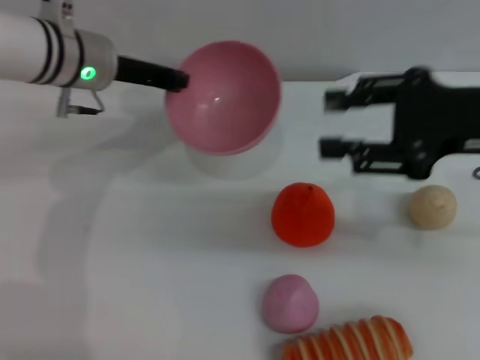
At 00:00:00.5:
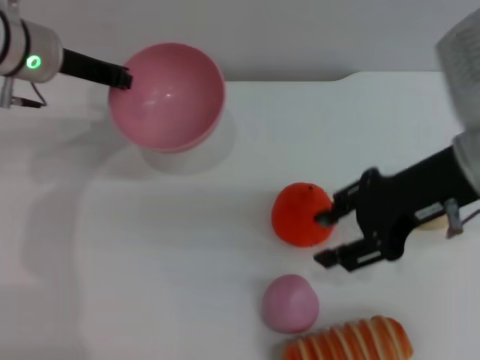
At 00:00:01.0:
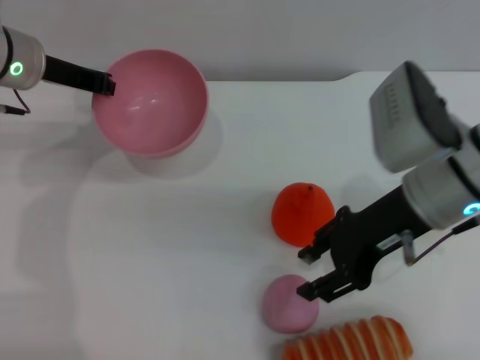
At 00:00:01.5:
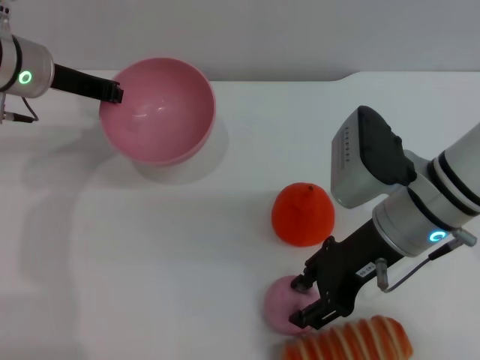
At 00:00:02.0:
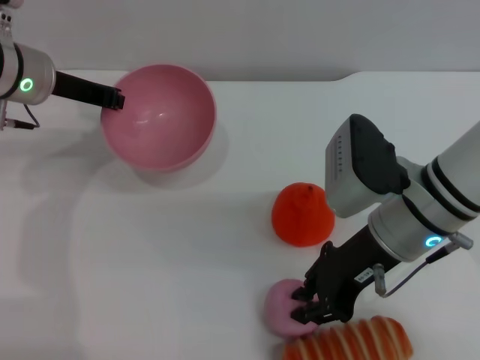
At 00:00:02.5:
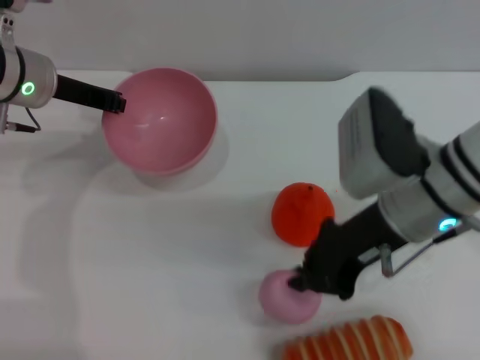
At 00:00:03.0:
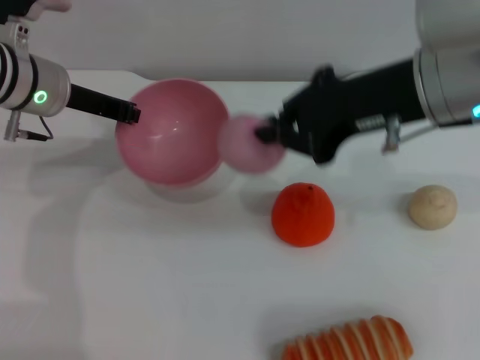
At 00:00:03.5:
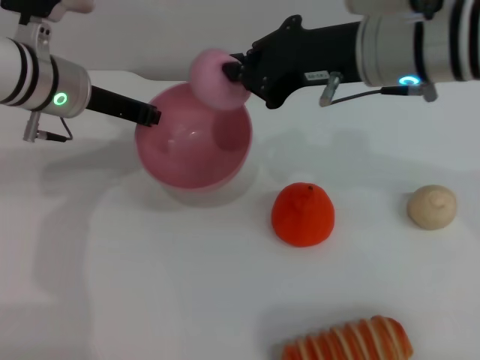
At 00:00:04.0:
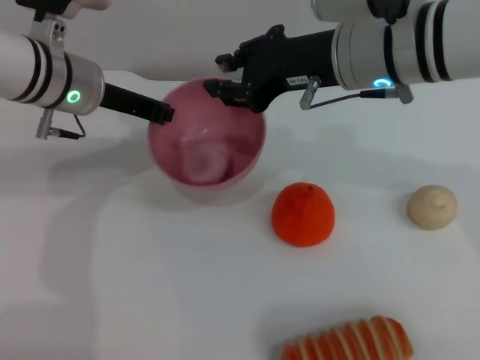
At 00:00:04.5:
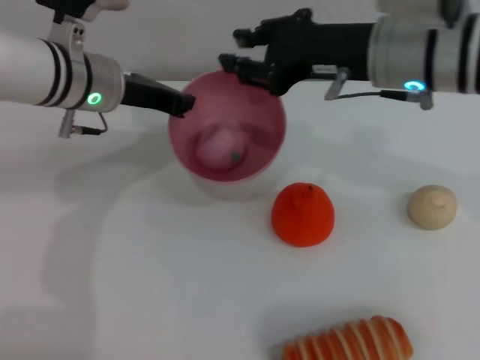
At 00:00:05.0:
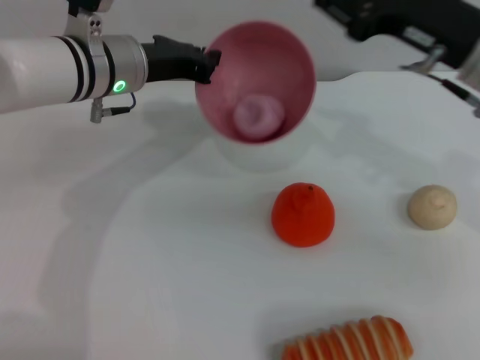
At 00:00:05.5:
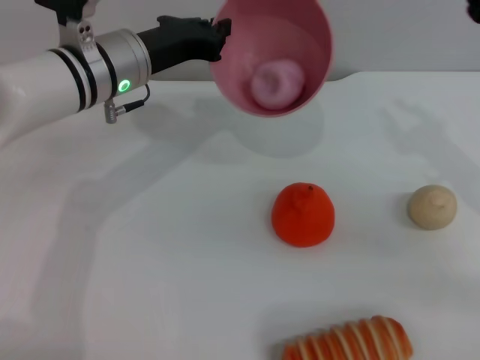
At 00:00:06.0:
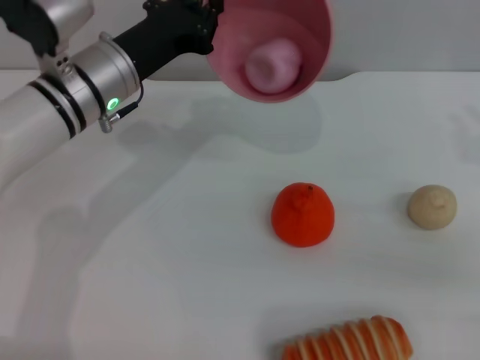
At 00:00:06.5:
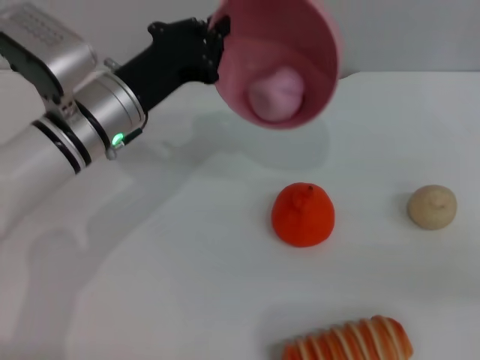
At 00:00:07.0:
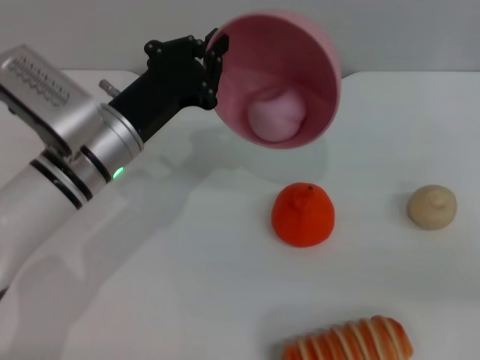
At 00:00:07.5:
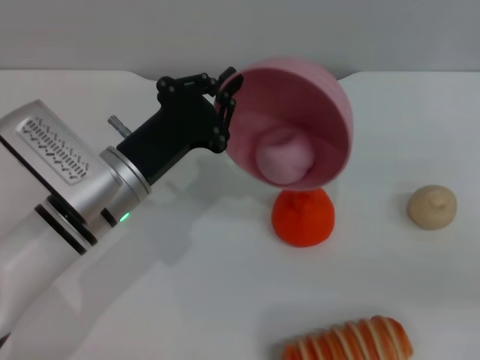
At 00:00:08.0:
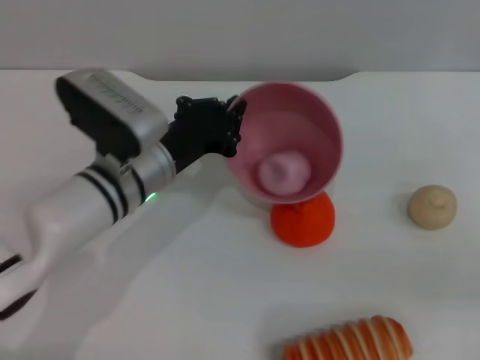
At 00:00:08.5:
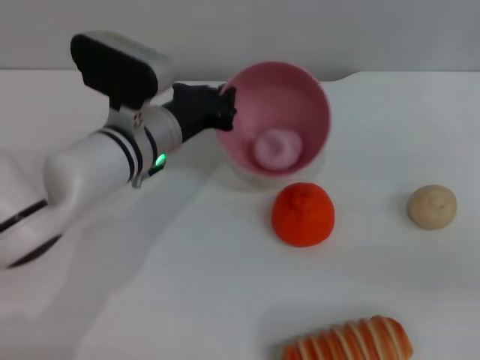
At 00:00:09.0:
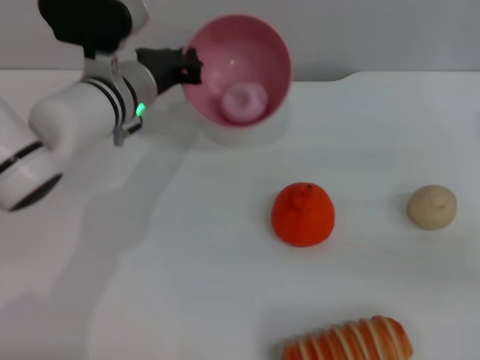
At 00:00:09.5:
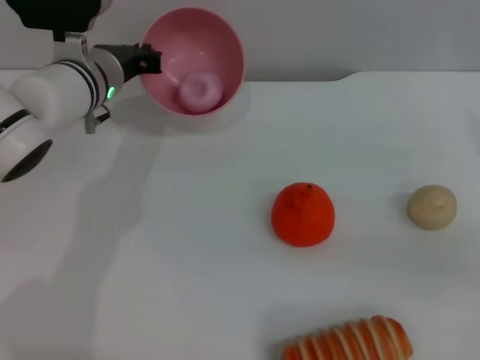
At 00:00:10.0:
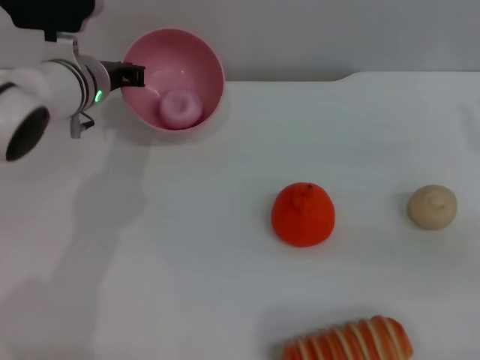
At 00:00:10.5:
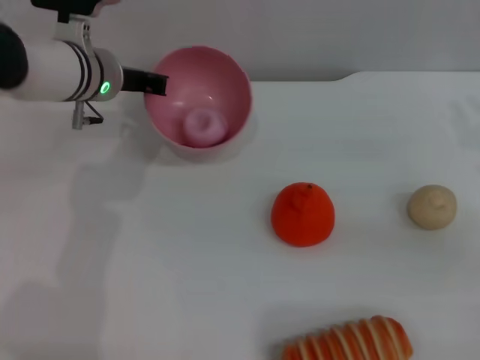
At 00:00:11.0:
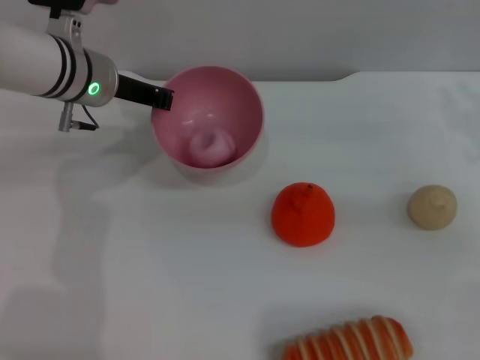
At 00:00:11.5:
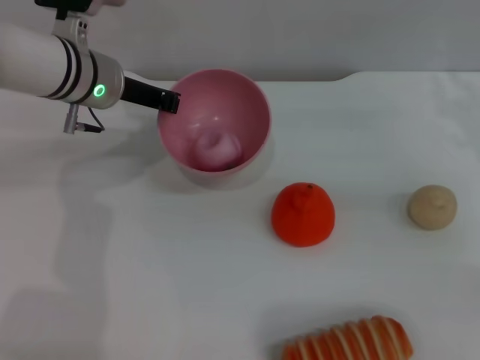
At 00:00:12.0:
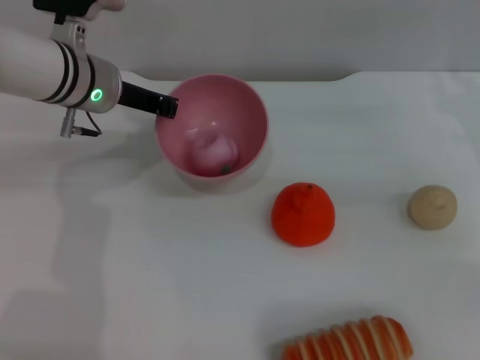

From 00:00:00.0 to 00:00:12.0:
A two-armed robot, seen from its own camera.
Task of the whole recording: put the peach into the pink bowl and pour it out repeatedly.
Step, from 00:00:00.0 to 00:00:02.5: Pick up the peach with the right gripper.
Step, from 00:00:03.0 to 00:00:04.5: Place the peach into the bowl.
From 00:00:00.0 to 00:00:02.0: The left gripper is displaced to the left by some 5 cm; the right gripper goes approximately 15 cm downward and to the left.
From 00:00:02.0 to 00:00:04.0: The right gripper is displaced upward and forward by some 10 cm, and closes its fingers.
From 00:00:04.0 to 00:00:06.0: The right gripper heads to the right, covering approximately 20 cm.
From 00:00:06.0 to 00:00:08.0: The left gripper travels downward and backward by about 10 cm.
From 00:00:08.0 to 00:00:10.0: The left gripper moves forward, some 10 cm.
From 00:00:10.0 to 00:00:12.0: The right gripper shifts approximately 5 cm forward.

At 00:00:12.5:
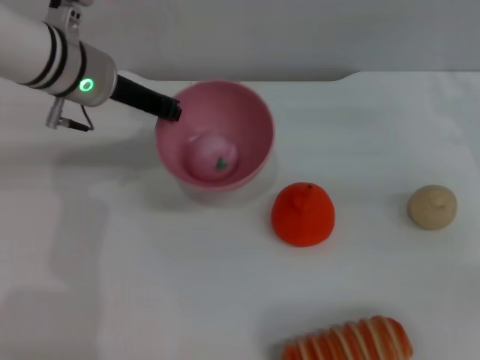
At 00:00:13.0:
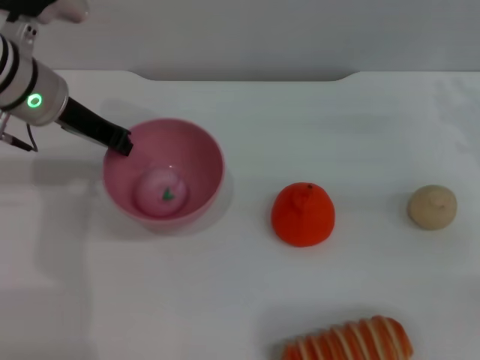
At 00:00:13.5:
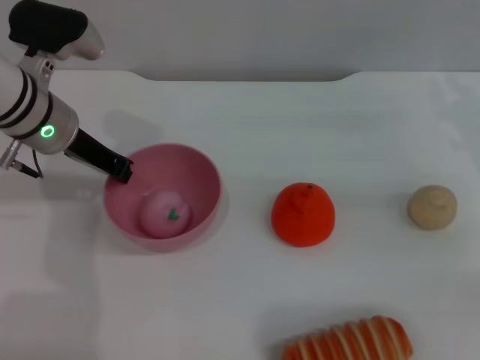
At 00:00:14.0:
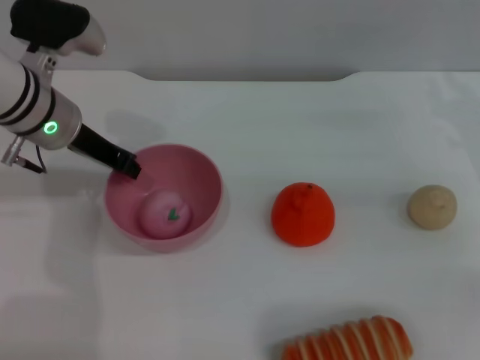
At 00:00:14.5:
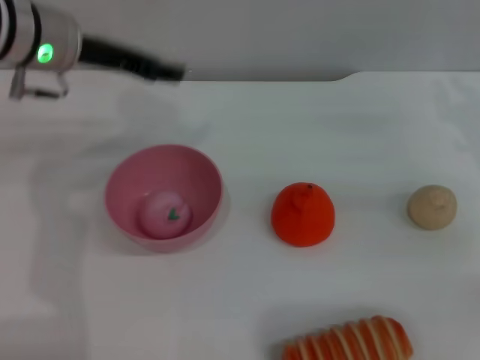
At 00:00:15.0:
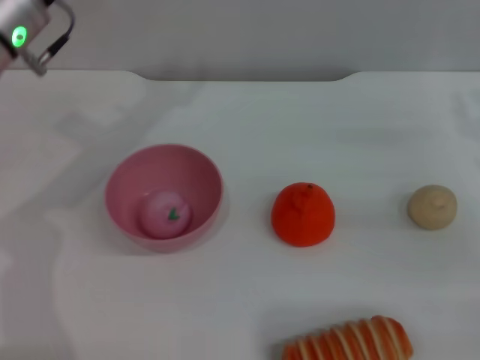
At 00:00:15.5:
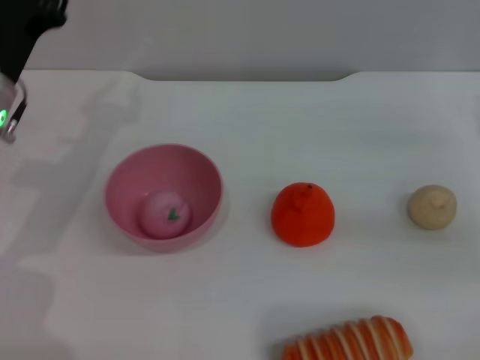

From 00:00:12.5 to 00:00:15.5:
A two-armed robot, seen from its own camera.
Task of the whole recording: put the peach into the pink bowl and pour it out repeatedly.
From 00:00:12.5 to 00:00:14.0: The grippers make only small movements.
From 00:00:14.0 to 00:00:15.5: The left gripper moves roughly 5 cm upward and comes back.

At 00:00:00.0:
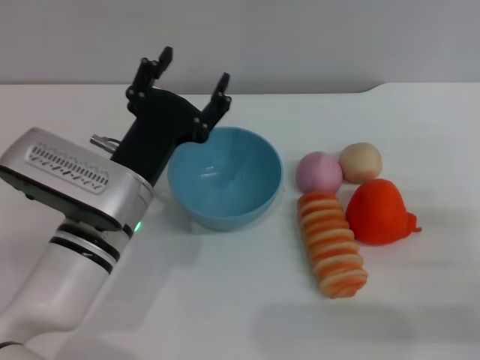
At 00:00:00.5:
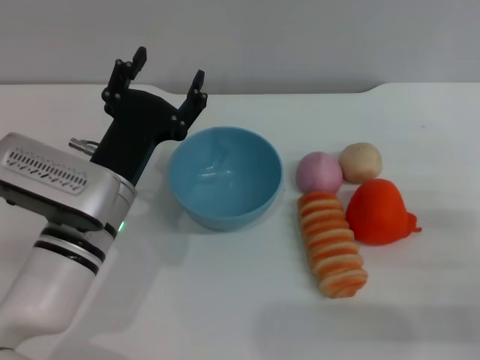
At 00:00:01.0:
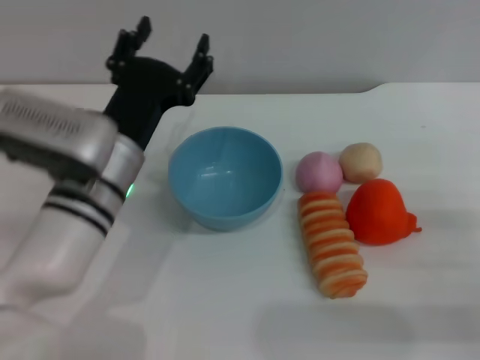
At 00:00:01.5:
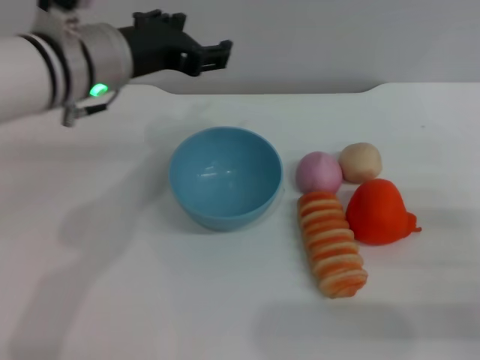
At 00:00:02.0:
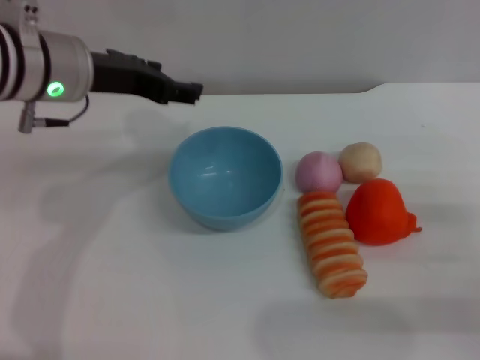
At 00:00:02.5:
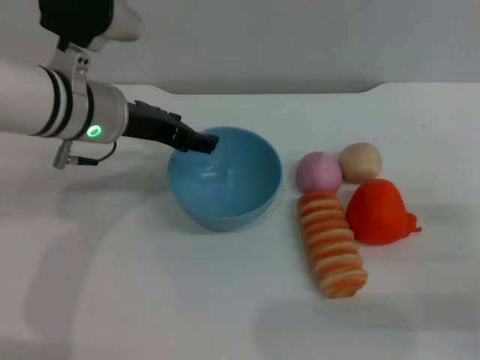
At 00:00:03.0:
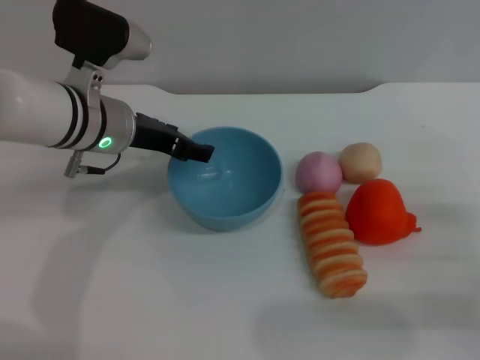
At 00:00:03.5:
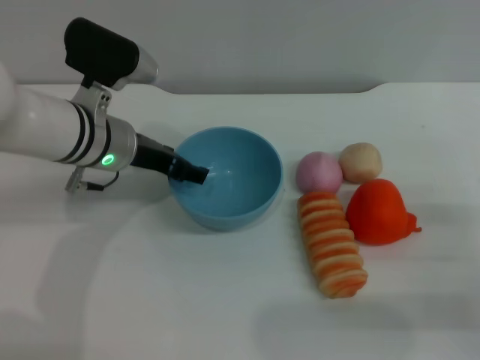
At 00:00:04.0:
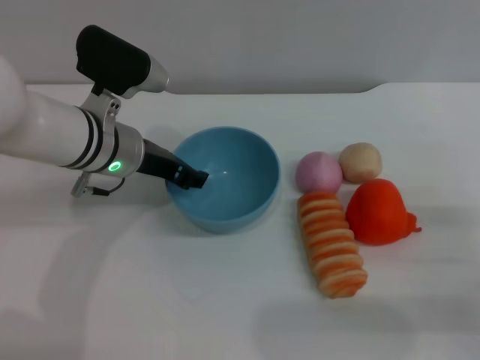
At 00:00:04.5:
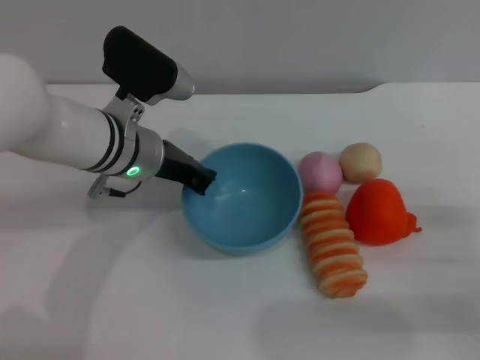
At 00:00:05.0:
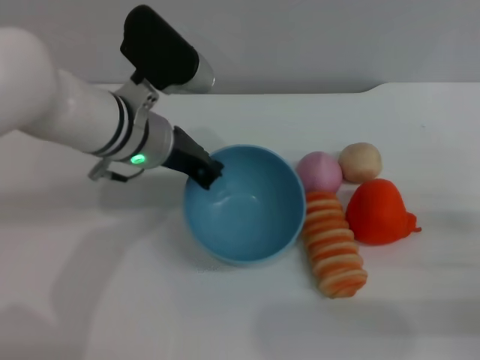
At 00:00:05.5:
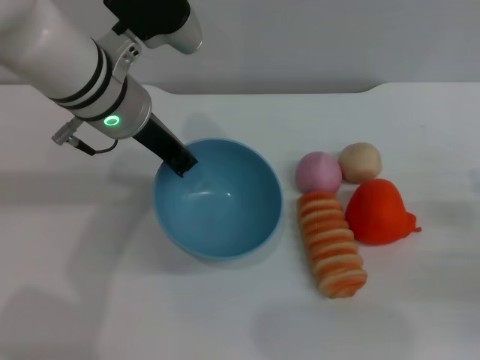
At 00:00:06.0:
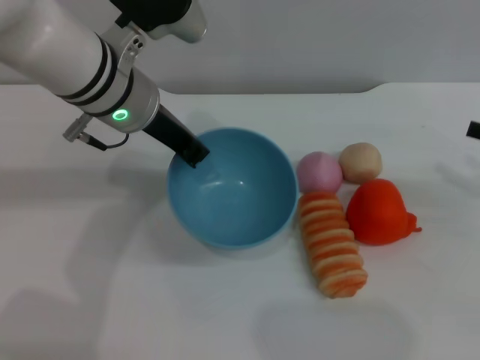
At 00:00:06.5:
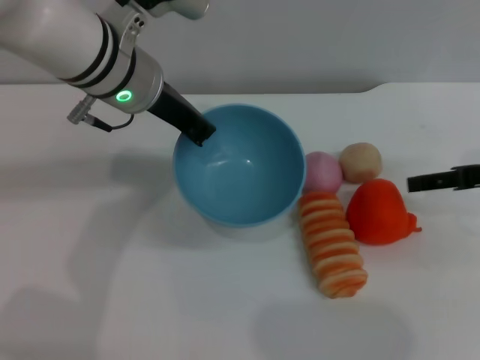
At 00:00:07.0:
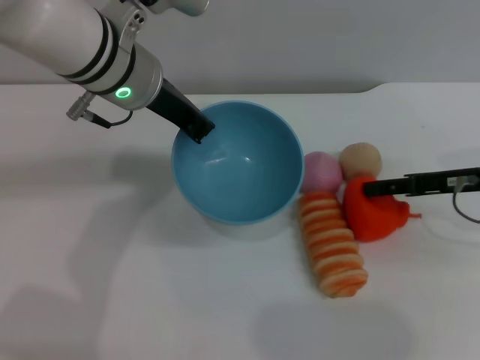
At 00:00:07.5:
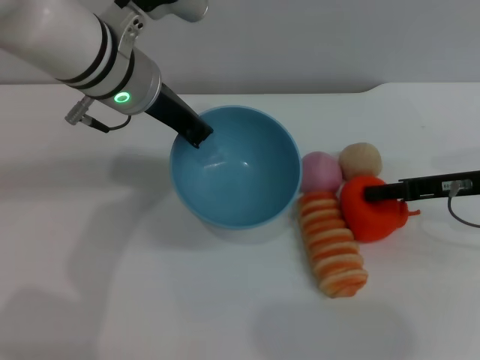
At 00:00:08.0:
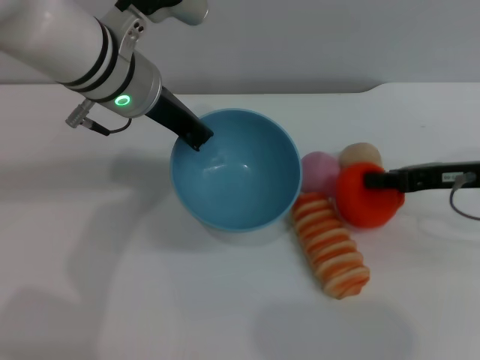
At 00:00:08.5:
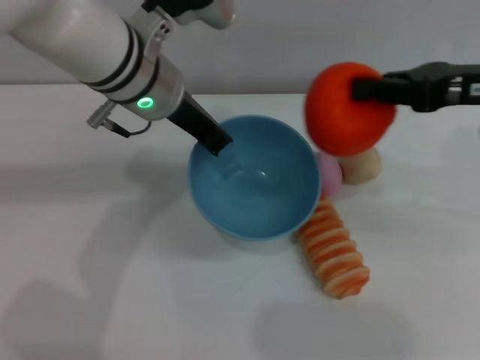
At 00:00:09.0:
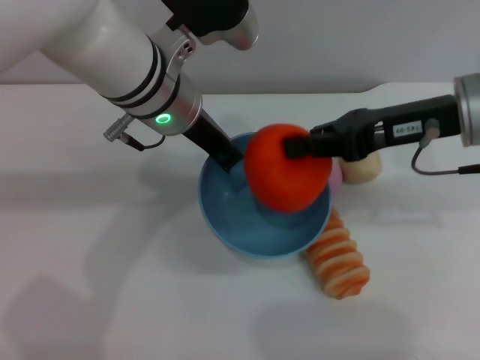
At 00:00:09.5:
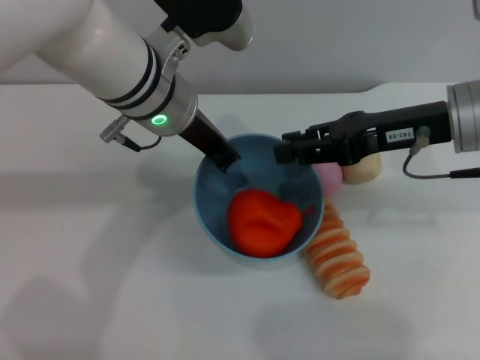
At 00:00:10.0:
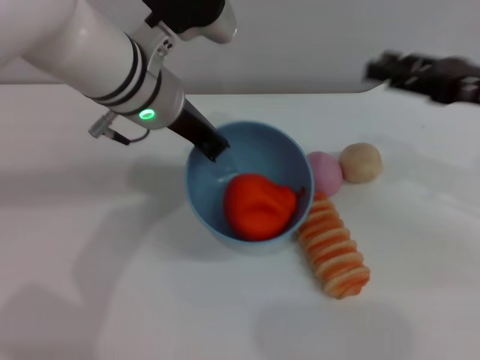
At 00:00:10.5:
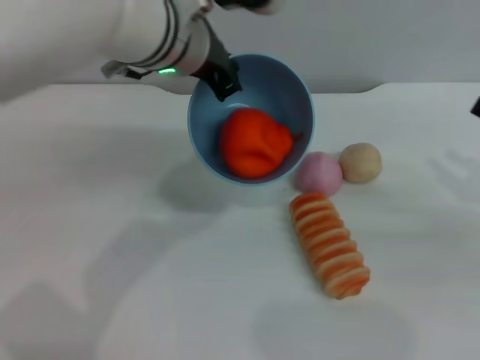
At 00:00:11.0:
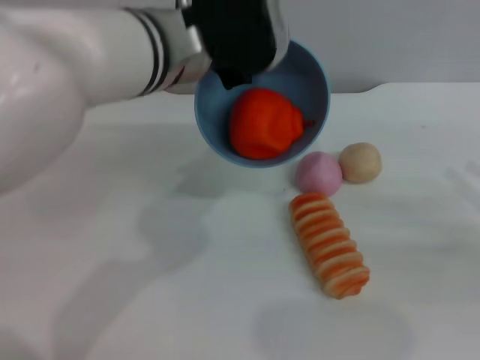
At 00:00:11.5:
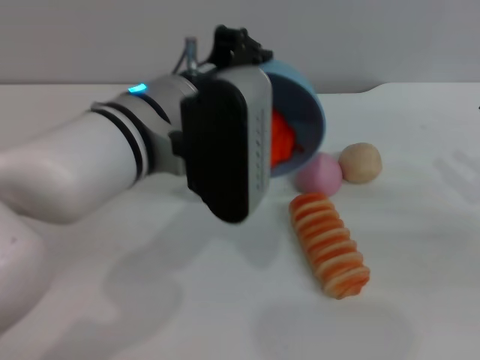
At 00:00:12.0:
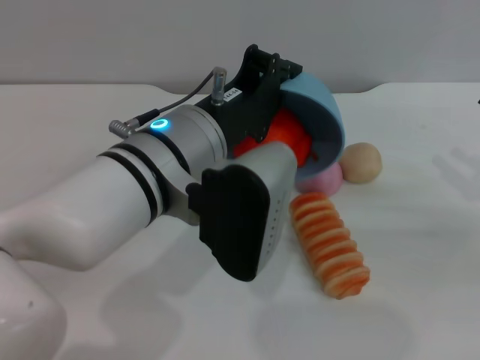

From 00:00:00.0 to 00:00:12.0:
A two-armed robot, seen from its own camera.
Task of the whole recording: put the orange into the blue bowl and pour it out repeatedly.
Step, from 00:00:00.0 to 00:00:05.5: Pick up the bowl with the left gripper.
Step, from 00:00:06.0 to 00:00:08.0: Pick up the orange with the right gripper.
Step, from 00:00:08.5 to 00:00:09.5: Place the orange into the bowl.
From 00:00:00.0 to 00:00:02.0: The left gripper goes about 15 cm upward, forward and to the left.
From 00:00:02.0 to 00:00:04.0: The left gripper heads downward, covering approximately 10 cm.
From 00:00:04.0 to 00:00:06.0: The left gripper shifts approximately 10 cm upward, and closes its fingers. Meanwhile the right gripper travels upward, forward and to the right by about 15 cm.
From 00:00:06.0 to 00:00:08.0: The right gripper travels to the left by approximately 10 cm, and closes.
From 00:00:08.0 to 00:00:10.0: The right gripper moves upward, approximately 5 cm, and opens up.
From 00:00:10.0 to 00:00:12.0: The left gripper is displaced backward by about 10 cm, while the right gripper shifts some 10 cm to the right, downward and backward.
